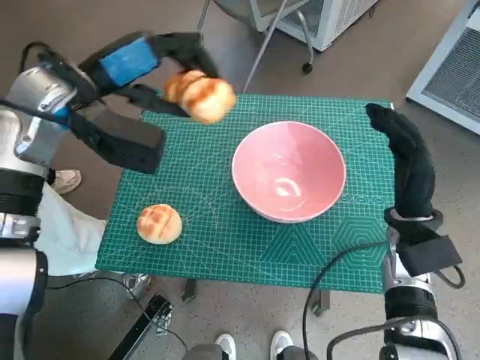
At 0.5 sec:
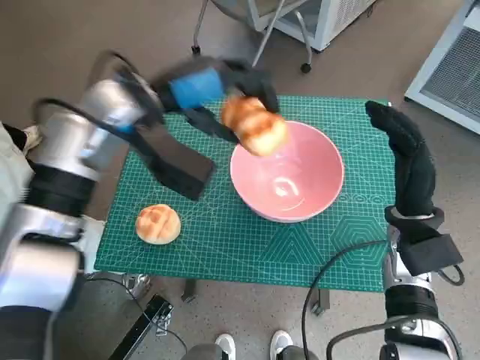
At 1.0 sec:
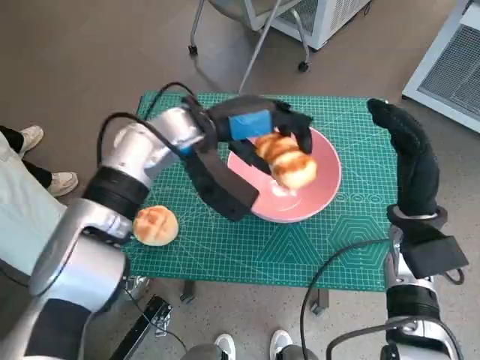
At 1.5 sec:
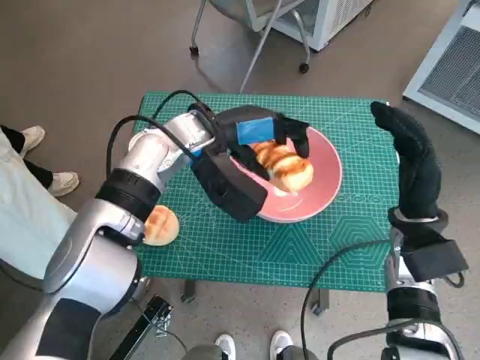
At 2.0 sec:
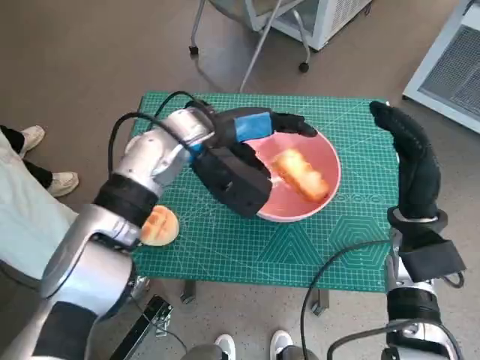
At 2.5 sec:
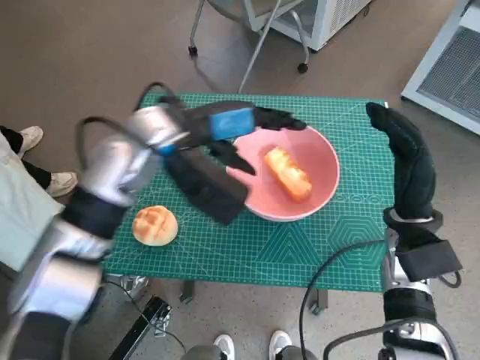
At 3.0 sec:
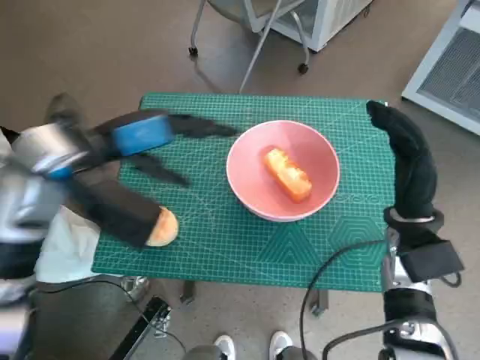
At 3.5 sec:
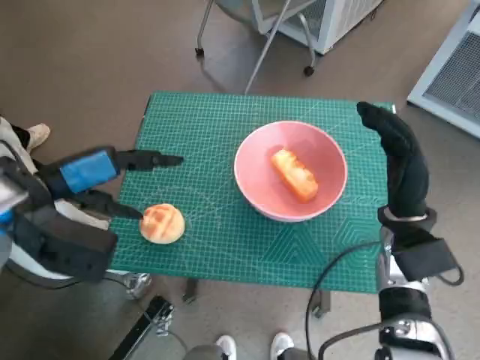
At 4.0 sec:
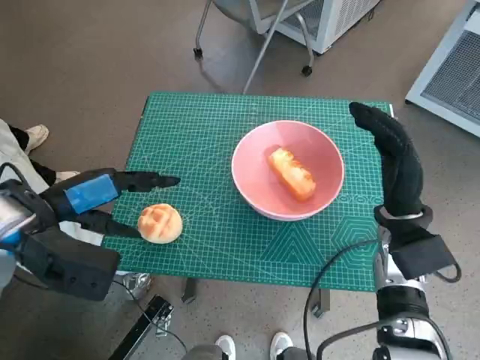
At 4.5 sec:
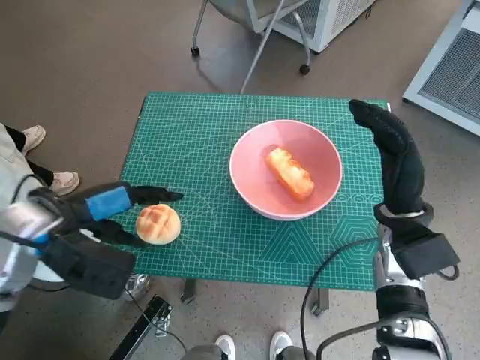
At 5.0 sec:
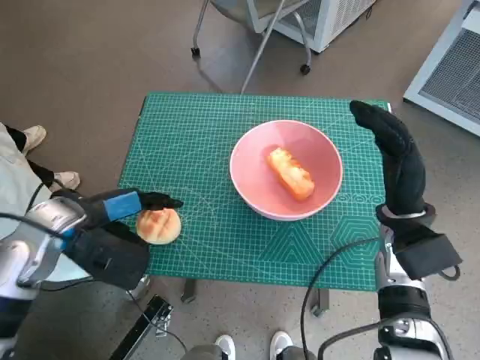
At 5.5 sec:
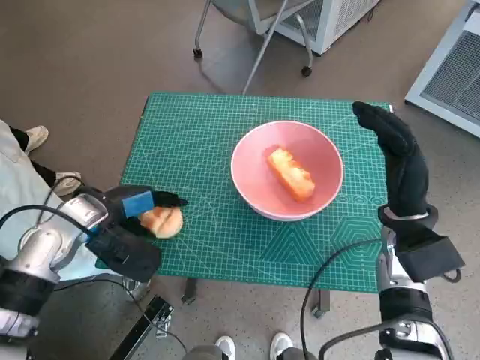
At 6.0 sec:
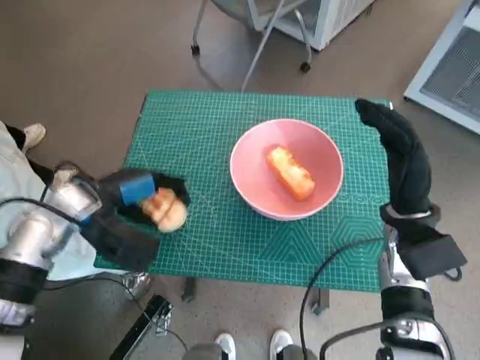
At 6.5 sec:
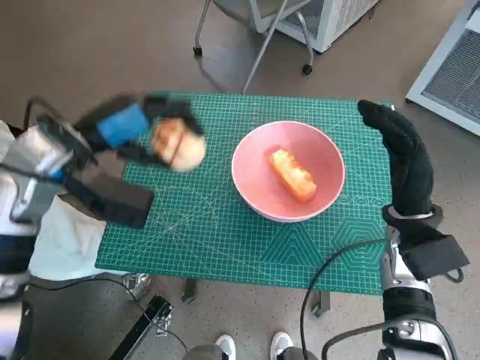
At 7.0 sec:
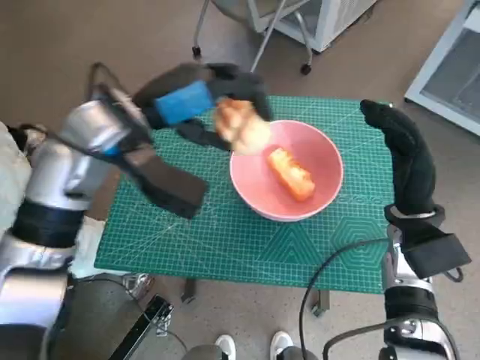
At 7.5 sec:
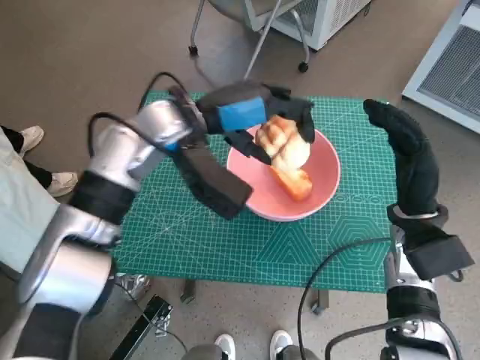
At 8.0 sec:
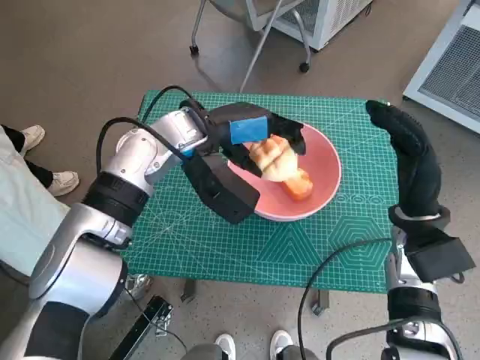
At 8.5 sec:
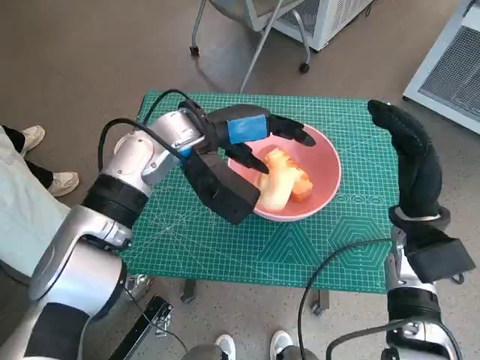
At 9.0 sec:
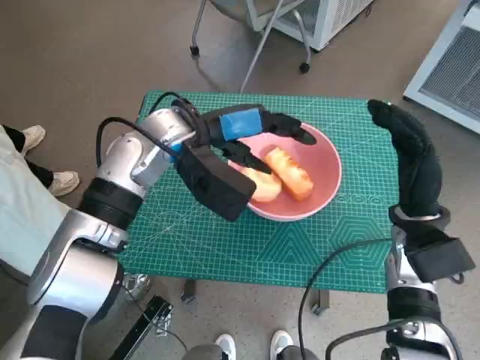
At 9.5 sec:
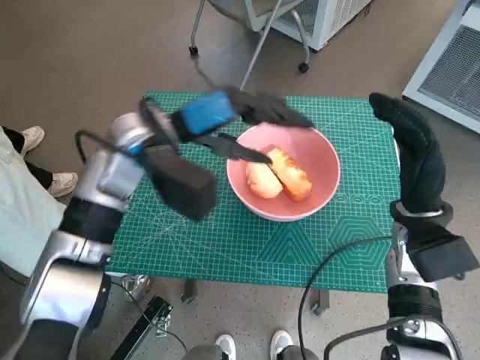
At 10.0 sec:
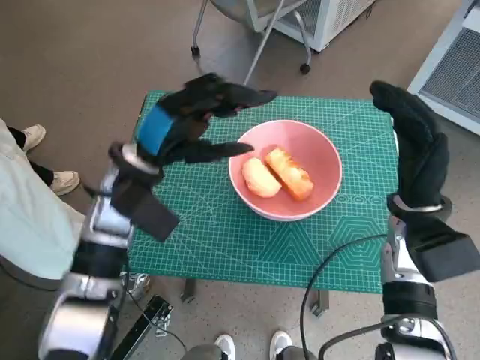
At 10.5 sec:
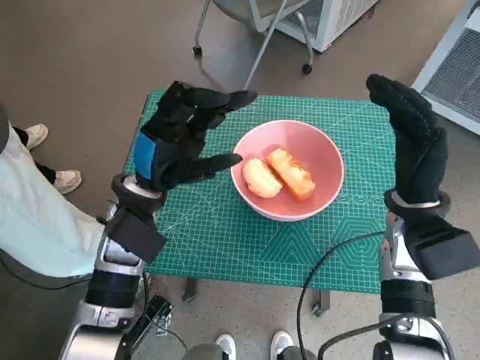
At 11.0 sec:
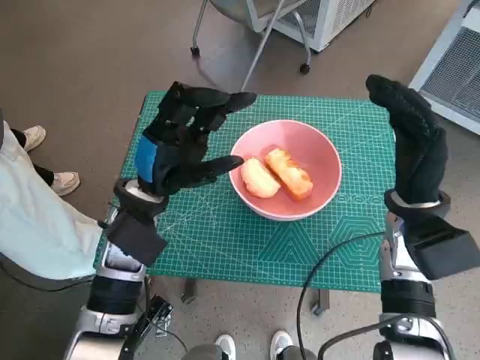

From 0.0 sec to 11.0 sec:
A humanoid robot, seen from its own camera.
Task of the whole recording: Push the bowl to the center of the table and put the bread into the bowl.
Step, from 0.0 sec to 2.0 sec: Place the long bread in pink bowl with left hand.
Step, from 2.5 sec to 5.5 sec: Grasp the round bread with left hand.
Step, from 6.0 sec to 9.0 sec: Place the round bread in pink bowl with left hand.
From 0.0 sec to 2.0 sec: The left hand moves to the right and downward, some 15 cm.
From 2.0 sec to 3.5 sec: The left hand goes about 20 cm to the left and backward.
From 3.5 sec to 5.5 sec: The left hand travels downward by some 10 cm.
From 5.5 sec to 7.5 sec: The left hand travels to the right, upward and forward by some 20 cm.
From 7.5 sec to 9.0 sec: The hands stay close to where they were, moving slightly.
From 9.0 sec to 11.0 sec: The left hand is displaced backward, downward and to the left by roughly 10 cm.

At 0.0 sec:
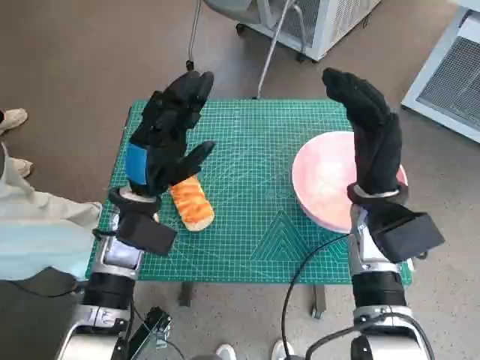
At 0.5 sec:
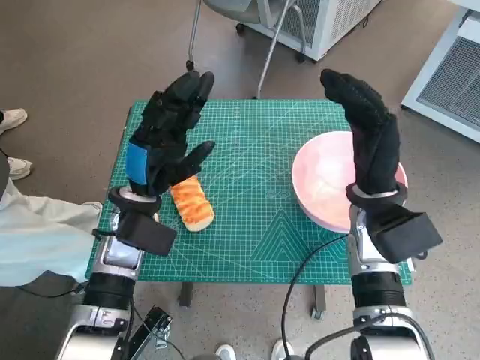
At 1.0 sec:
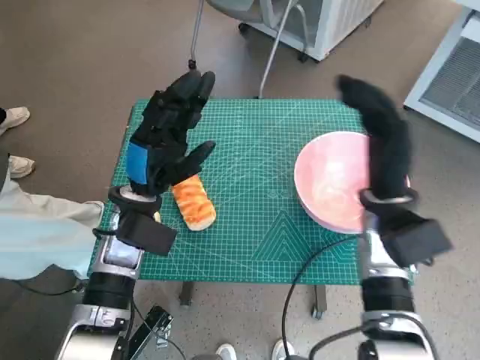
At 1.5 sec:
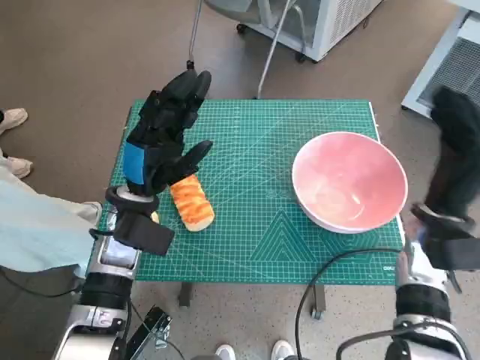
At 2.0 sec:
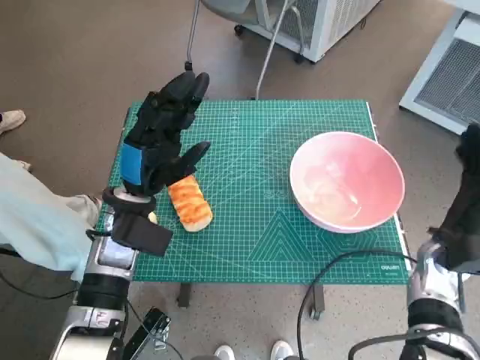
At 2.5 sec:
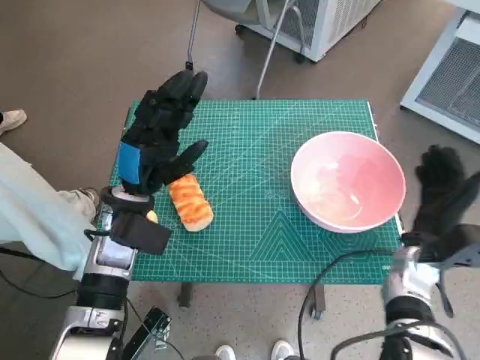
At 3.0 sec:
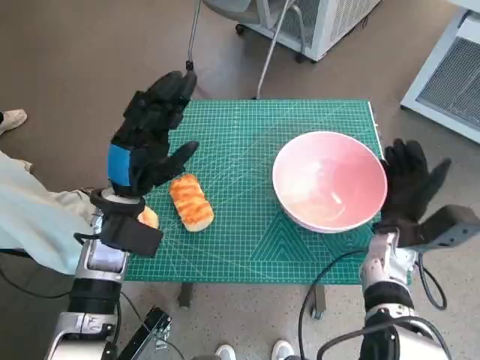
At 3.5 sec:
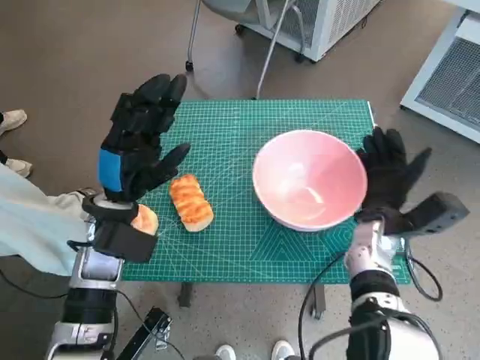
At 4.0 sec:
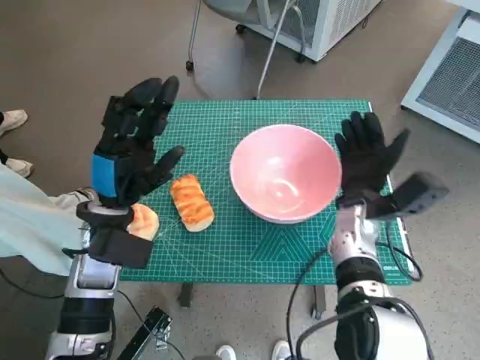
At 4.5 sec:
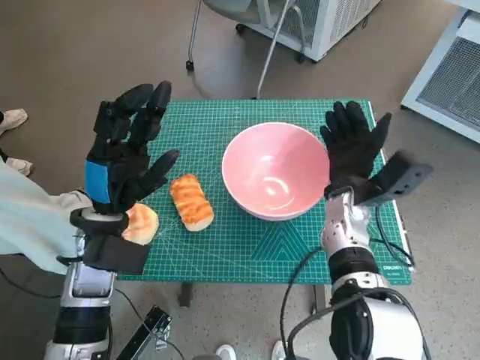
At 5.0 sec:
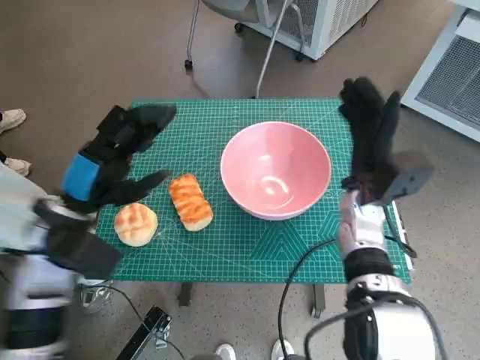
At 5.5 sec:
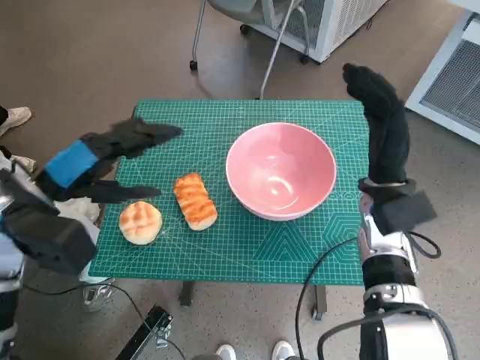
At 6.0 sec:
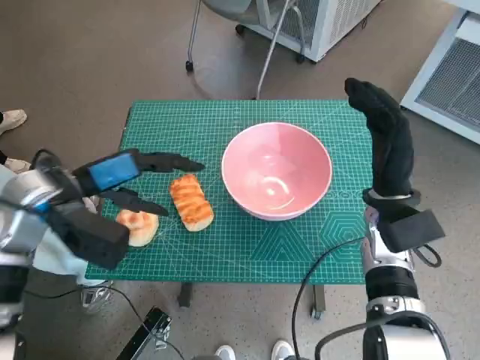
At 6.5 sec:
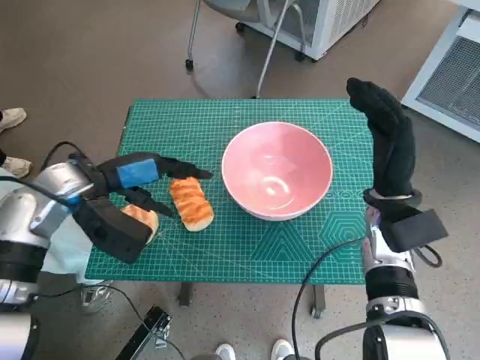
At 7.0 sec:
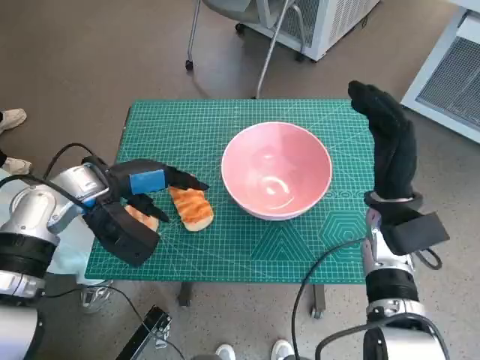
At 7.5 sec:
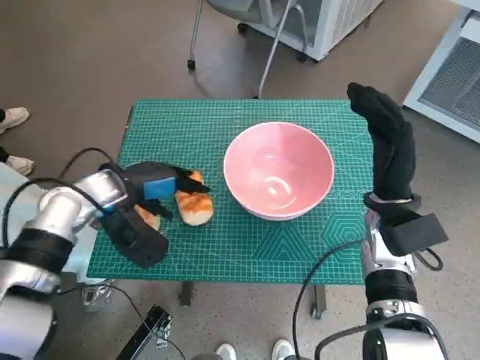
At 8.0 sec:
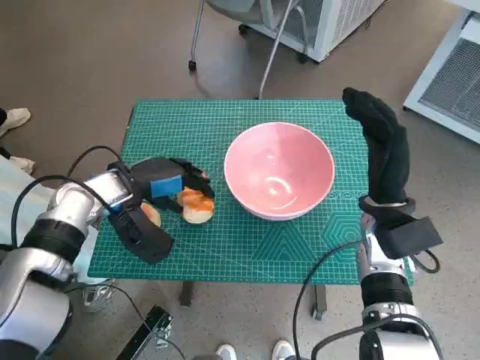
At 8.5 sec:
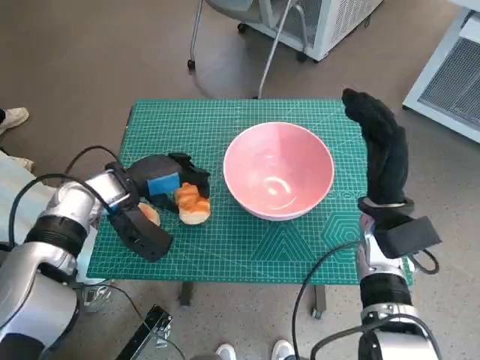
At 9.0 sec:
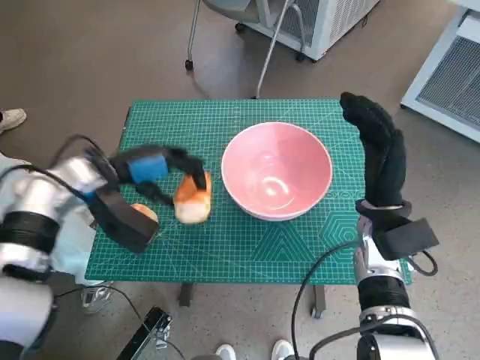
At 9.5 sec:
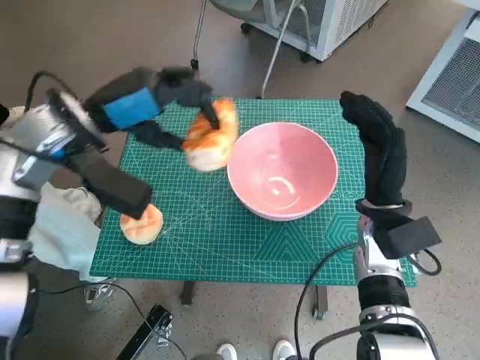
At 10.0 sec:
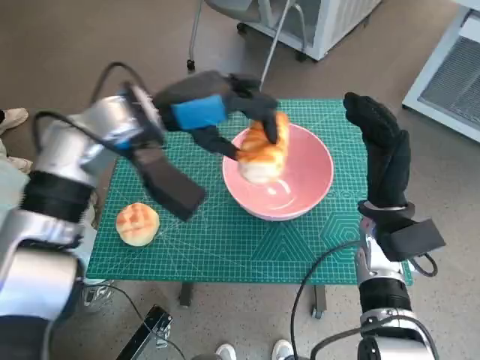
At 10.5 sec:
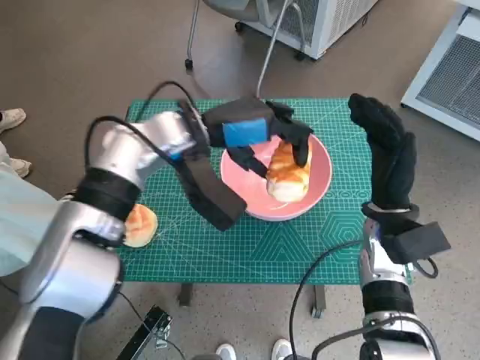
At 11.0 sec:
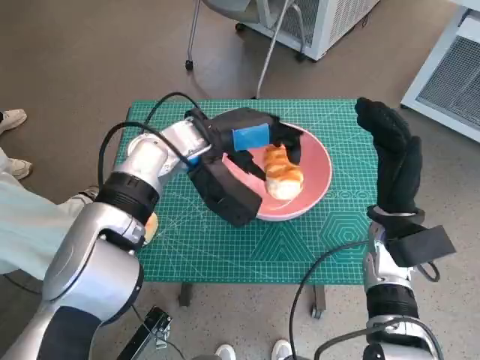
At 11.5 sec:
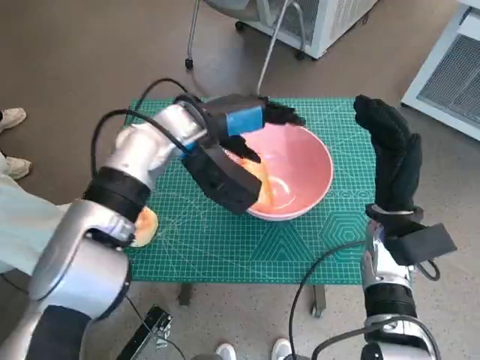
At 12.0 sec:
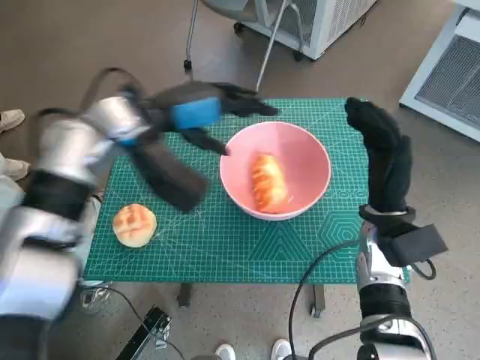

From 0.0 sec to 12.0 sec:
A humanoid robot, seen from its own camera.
Task of the whole recording: Push the bowl to the center of the table and put the bread into the bowl.
Step, from 0.0 sec to 4.5 sec: Move the pink bowl to the center of table with right hand.
Step, from 5.5 sec to 8.0 sec: Grasp the long bread with left hand.
Step, from 8.5 sec to 11.5 sec: Place the long bread in pink bowl with left hand.
From 2.0 sec to 4.0 sec: The right hand goes about 10 cm to the left and forward.
From 4.0 sec to 6.0 sec: The right hand moves about 5 cm. Meanwhile the left hand heads upward and to the left, covering roughly 10 cm.
From 6.0 sec to 8.0 sec: The left hand moves downward, roughly 5 cm.
From 8.0 sec to 10.0 sec: The left hand moves upward and to the right, some 15 cm.

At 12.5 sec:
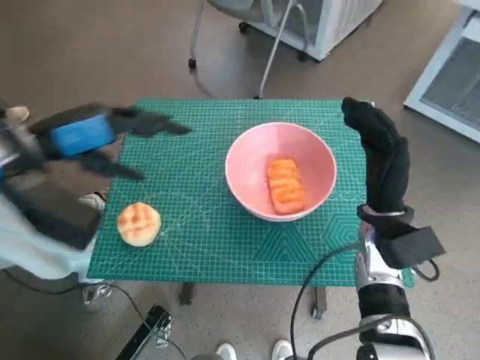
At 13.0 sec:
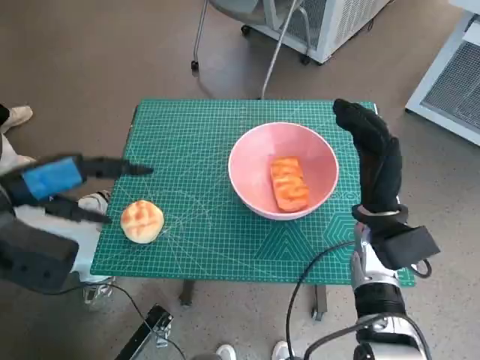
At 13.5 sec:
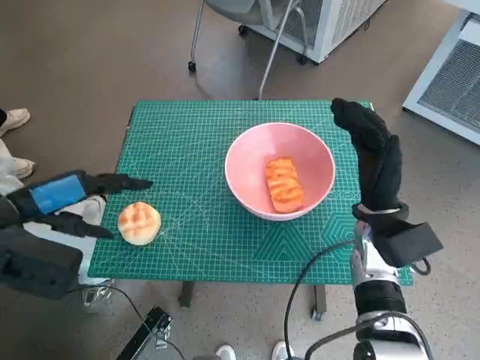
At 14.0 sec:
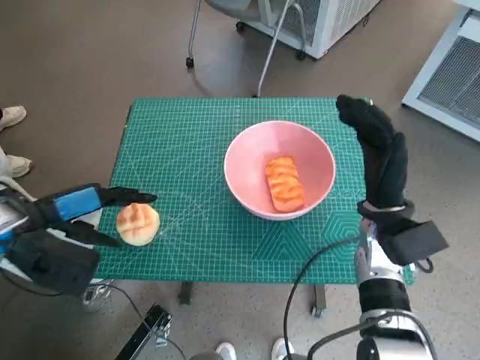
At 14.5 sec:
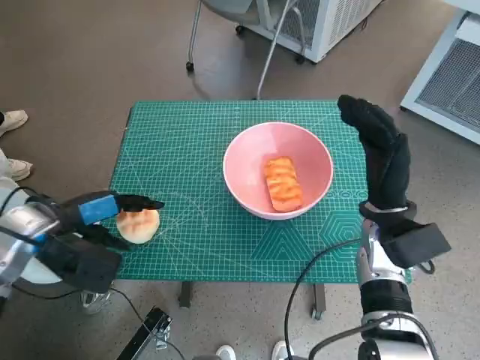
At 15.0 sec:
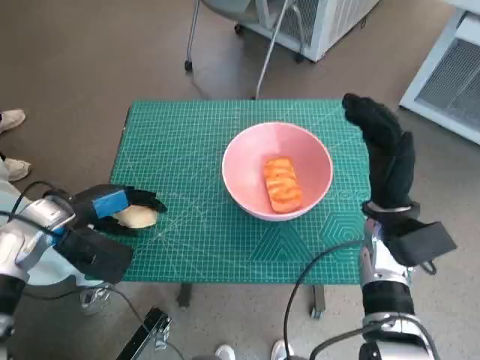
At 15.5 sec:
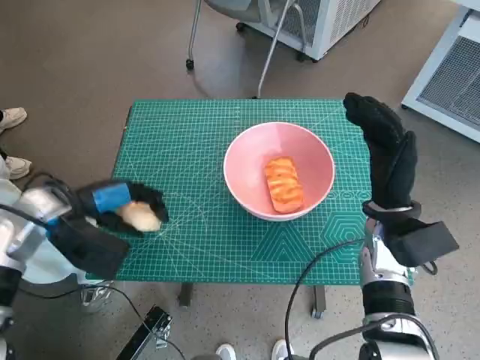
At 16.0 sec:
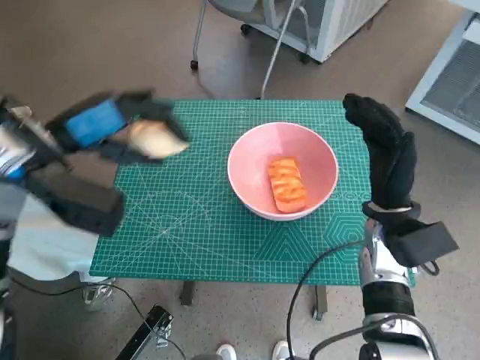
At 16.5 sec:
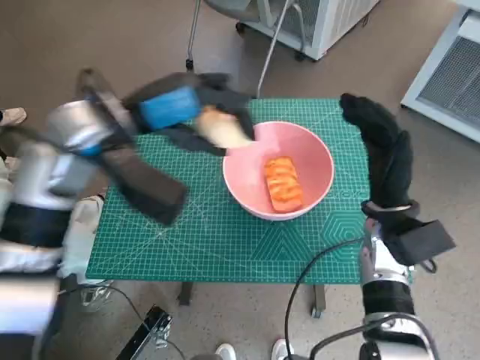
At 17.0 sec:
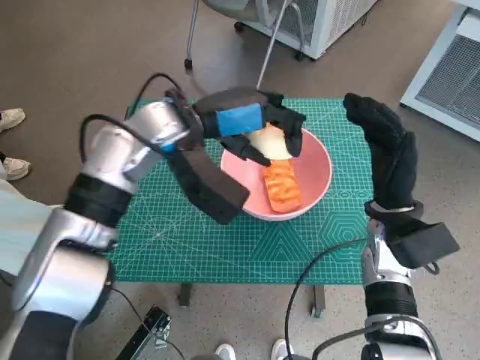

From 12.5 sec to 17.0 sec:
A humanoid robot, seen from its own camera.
Task of the whole recording: Push the bowl to the center of the table and put the bread into the bowl.
Step, from 12.5 sec to 15.0 sec: Grasp the round bread with left hand.
From 12.5 sec to 14.5 sec: The left hand goes roughly 10 cm downward.
From 14.5 sec to 17.0 sec: The left hand heads to the right, upward and forward, covering about 20 cm.
